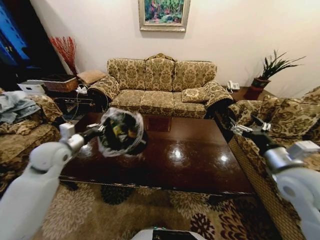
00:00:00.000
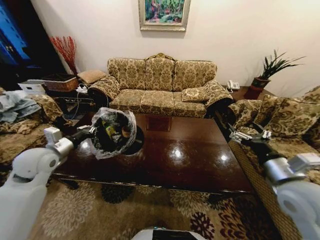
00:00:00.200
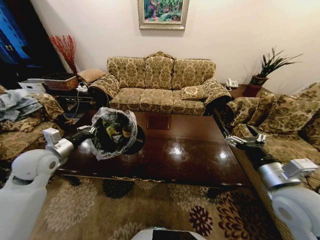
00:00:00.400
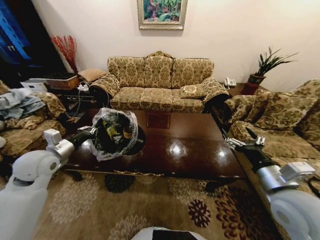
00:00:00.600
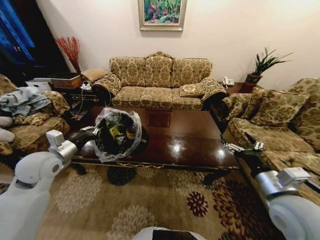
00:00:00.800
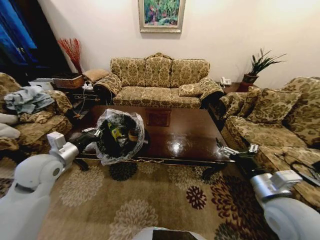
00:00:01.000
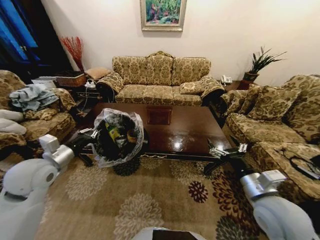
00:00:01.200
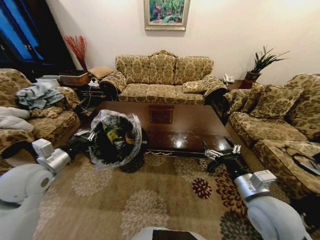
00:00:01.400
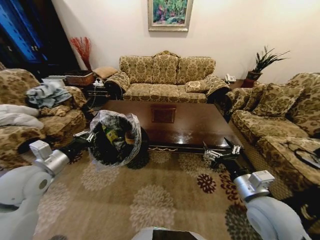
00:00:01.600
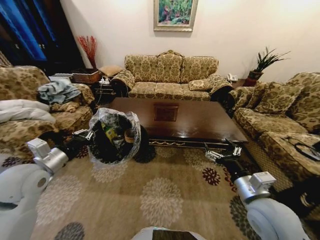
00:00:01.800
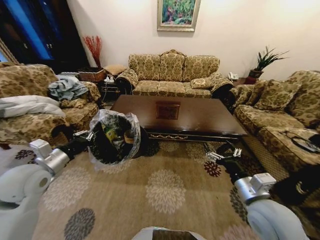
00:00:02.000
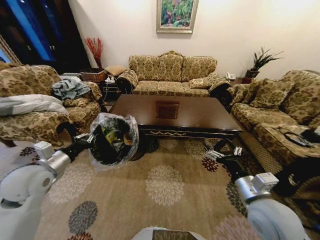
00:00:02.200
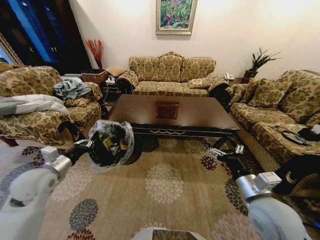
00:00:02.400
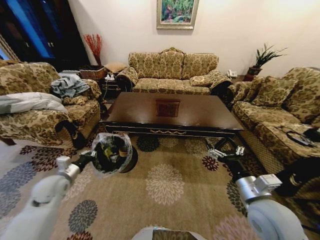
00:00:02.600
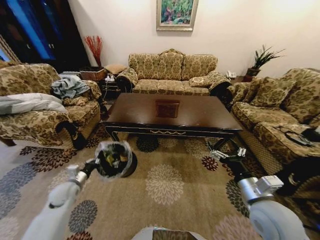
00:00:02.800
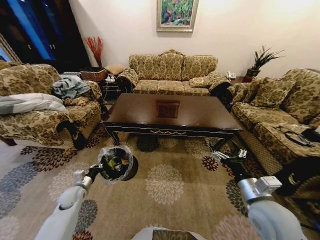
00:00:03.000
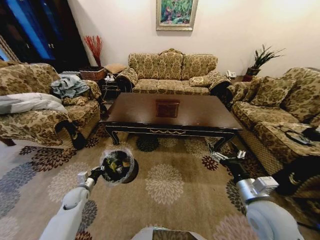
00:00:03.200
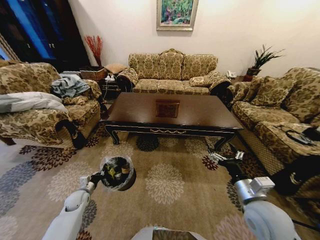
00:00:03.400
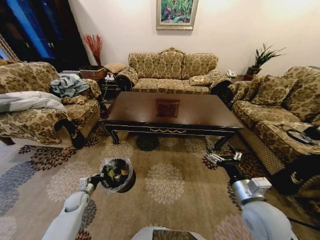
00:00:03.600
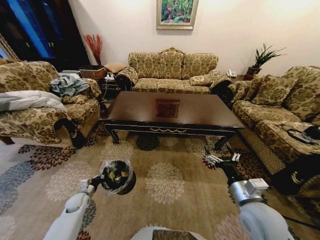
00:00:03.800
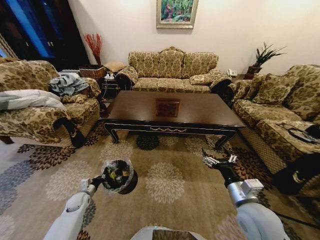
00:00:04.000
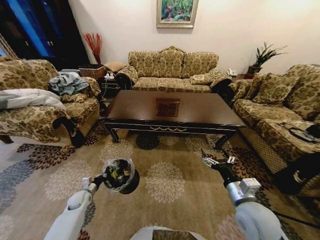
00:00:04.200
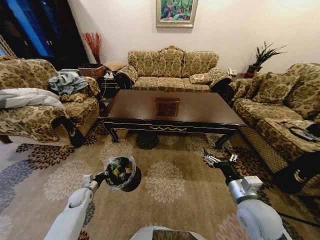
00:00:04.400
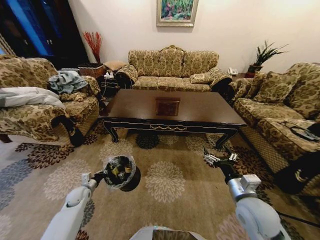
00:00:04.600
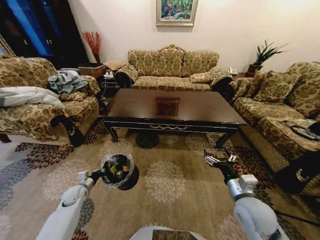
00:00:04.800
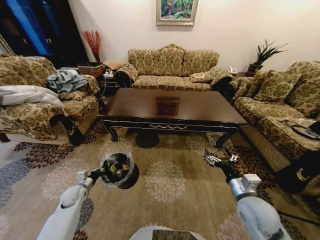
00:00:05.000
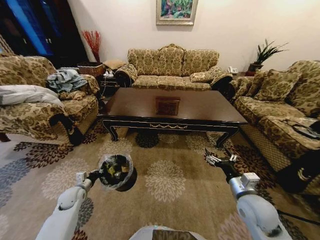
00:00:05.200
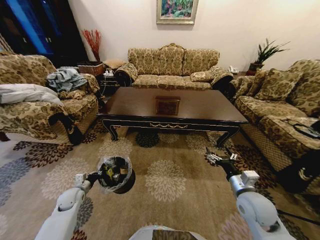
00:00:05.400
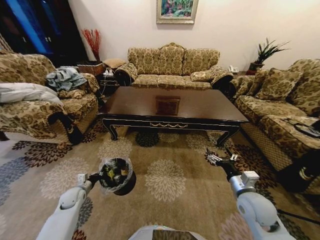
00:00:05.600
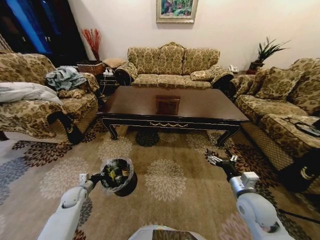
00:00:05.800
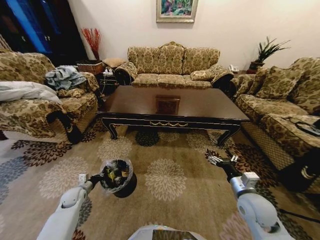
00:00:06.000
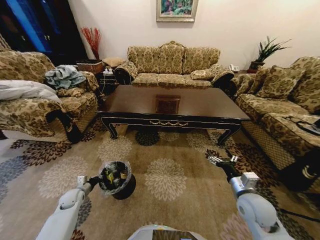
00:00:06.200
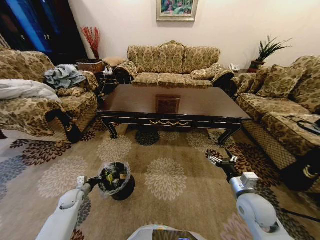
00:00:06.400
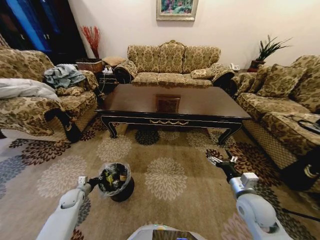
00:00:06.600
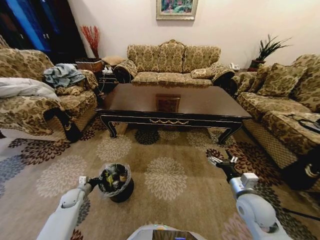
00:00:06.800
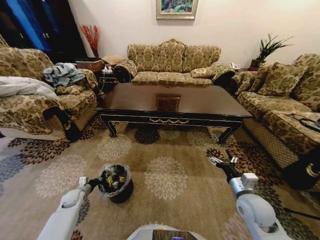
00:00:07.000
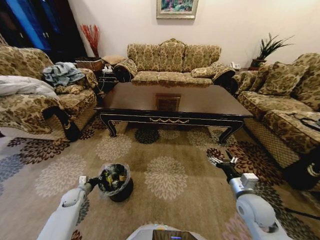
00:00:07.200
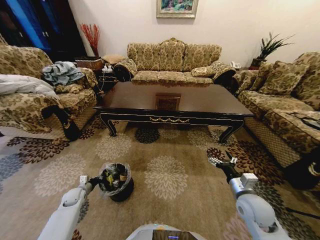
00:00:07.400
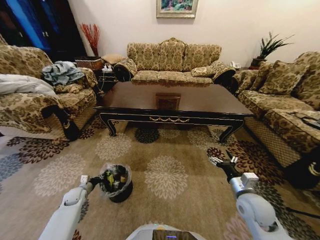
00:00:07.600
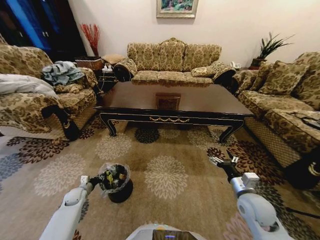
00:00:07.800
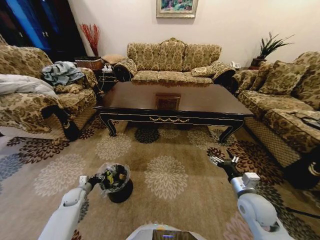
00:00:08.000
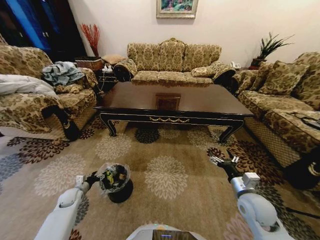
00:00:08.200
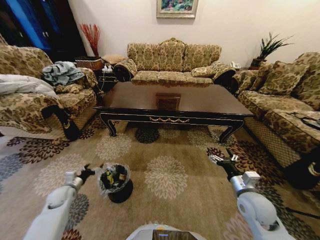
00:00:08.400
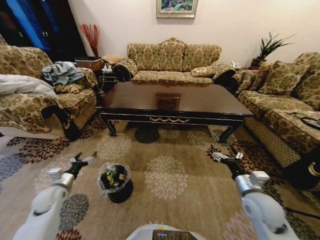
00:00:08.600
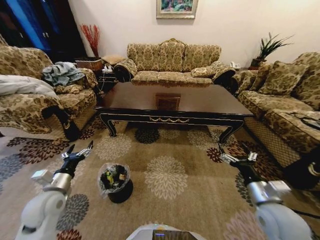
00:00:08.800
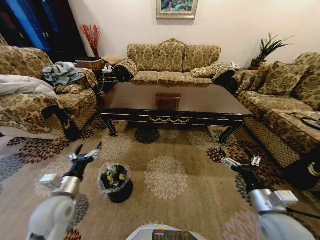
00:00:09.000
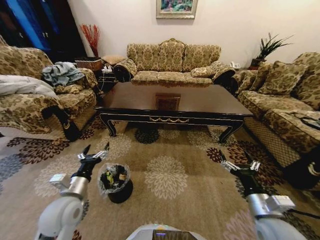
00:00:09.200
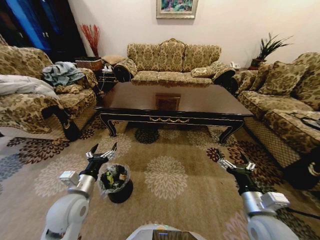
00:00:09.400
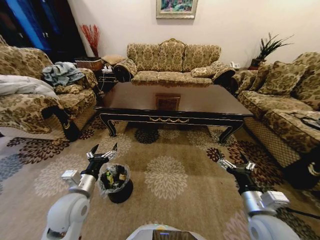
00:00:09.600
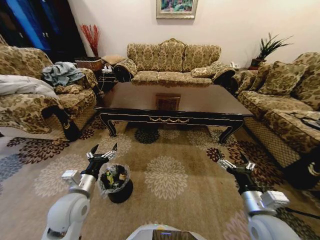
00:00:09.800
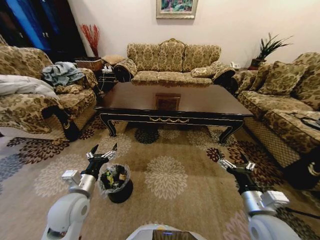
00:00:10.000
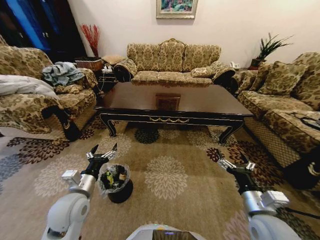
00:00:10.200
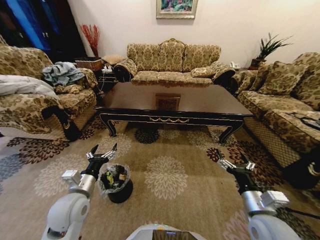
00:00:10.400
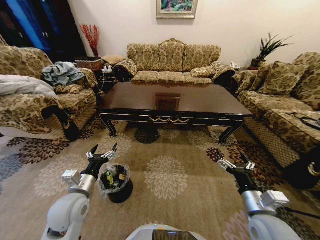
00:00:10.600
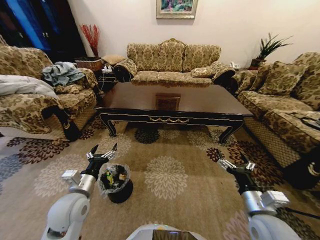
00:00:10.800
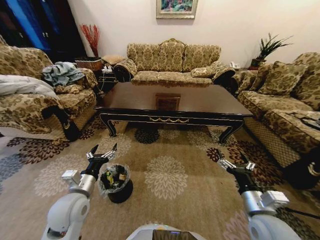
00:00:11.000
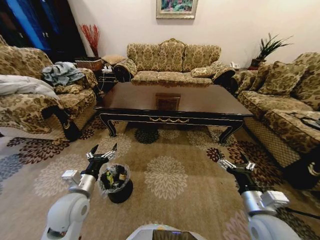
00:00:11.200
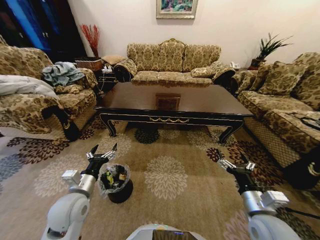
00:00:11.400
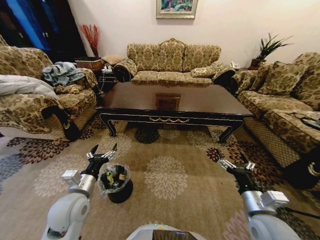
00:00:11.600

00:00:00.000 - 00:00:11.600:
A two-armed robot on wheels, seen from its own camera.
Task of the whole recording: Move to the front of the table and place the trash on the table into the trash bin.
00:00:00.000 - 00:00:01.400: The right gripper heads to the left and downward, covering approximately 10 cm. Meanwhile the left gripper is displaced backward by some 10 cm.
00:00:01.400 - 00:00:02.800: The left gripper moves downward, some 20 cm.
00:00:02.800 - 00:00:04.400: The left gripper goes some 10 cm downward.
00:00:04.400 - 00:00:05.800: The right gripper changes place by roughly 5 cm.
00:00:07.200 - 00:00:08.800: The left gripper goes roughly 25 cm upward, and opens its fingers, while the right gripper goes about 5 cm upward.
00:00:08.800 - 00:00:10.200: The left gripper travels to the right by roughly 10 cm.
00:00:10.200 - 00:00:11.600: Neither gripper changes place.
